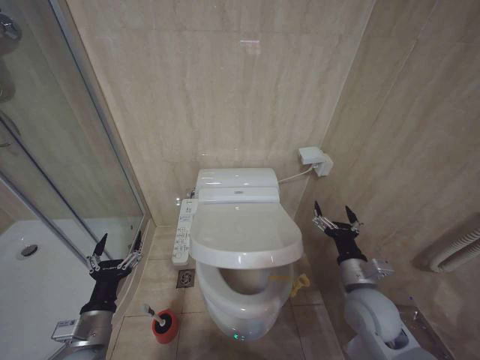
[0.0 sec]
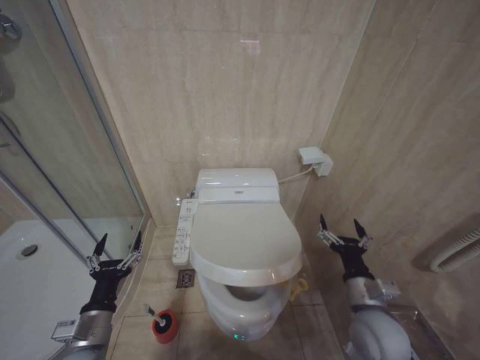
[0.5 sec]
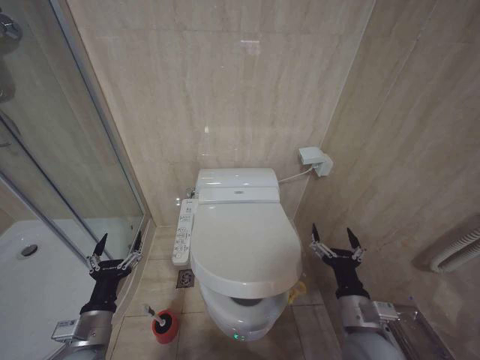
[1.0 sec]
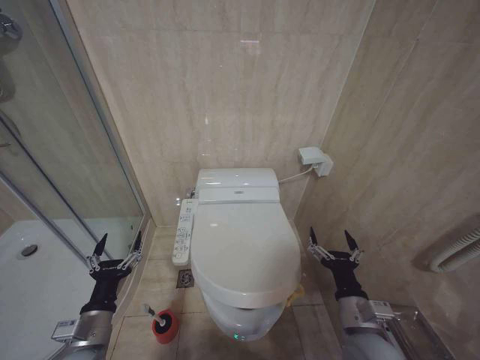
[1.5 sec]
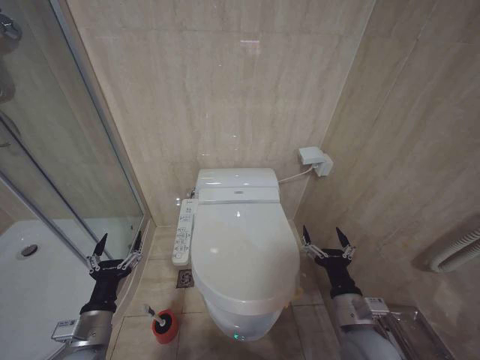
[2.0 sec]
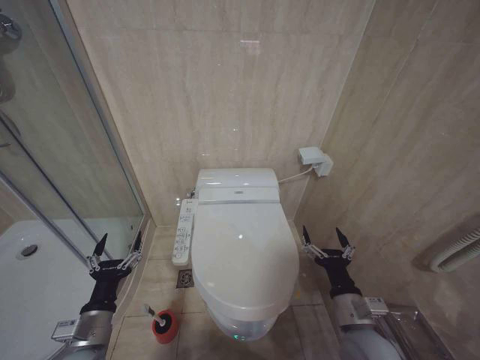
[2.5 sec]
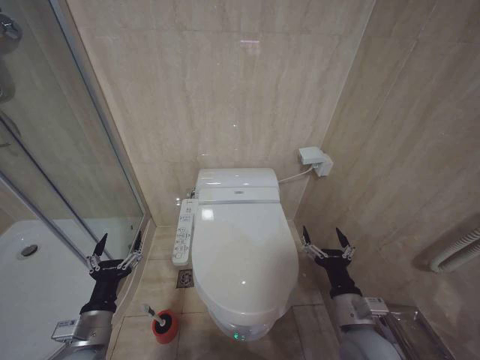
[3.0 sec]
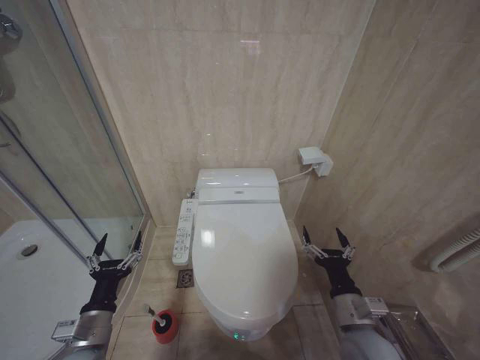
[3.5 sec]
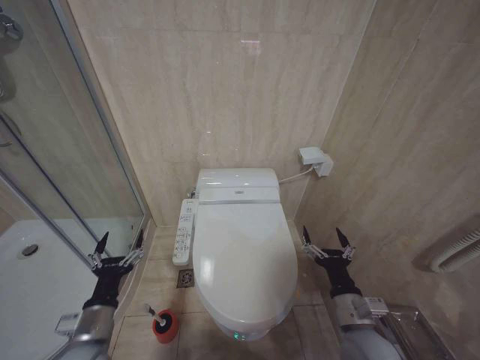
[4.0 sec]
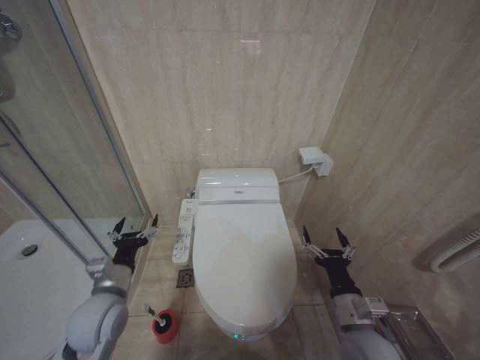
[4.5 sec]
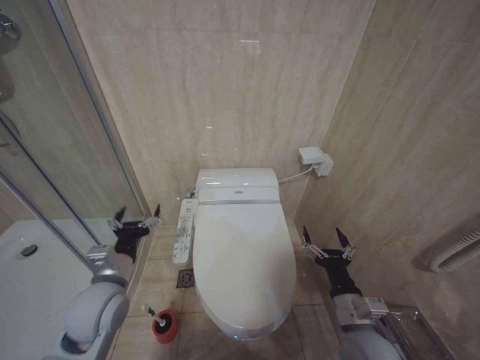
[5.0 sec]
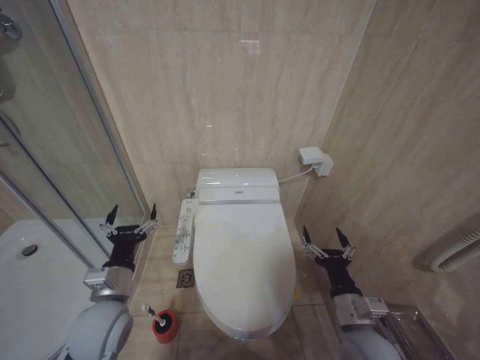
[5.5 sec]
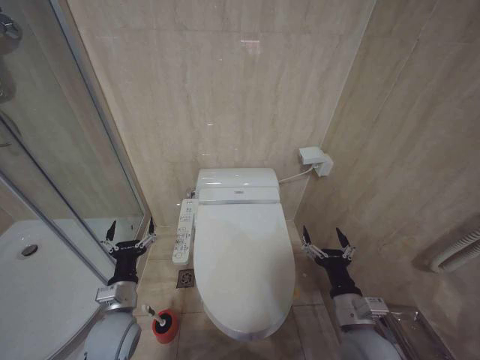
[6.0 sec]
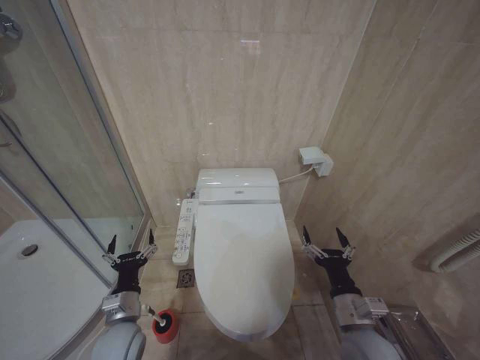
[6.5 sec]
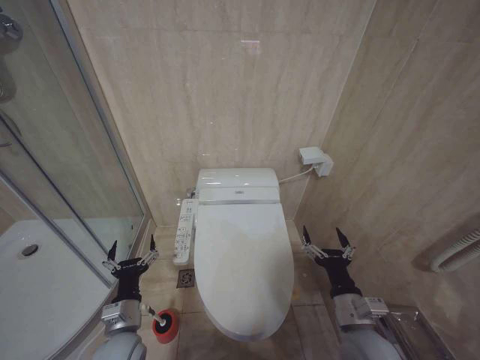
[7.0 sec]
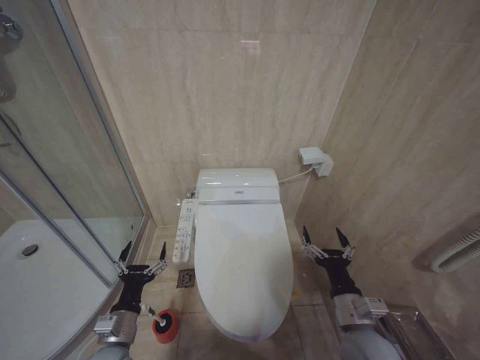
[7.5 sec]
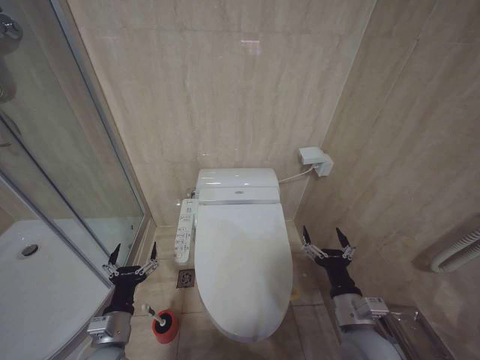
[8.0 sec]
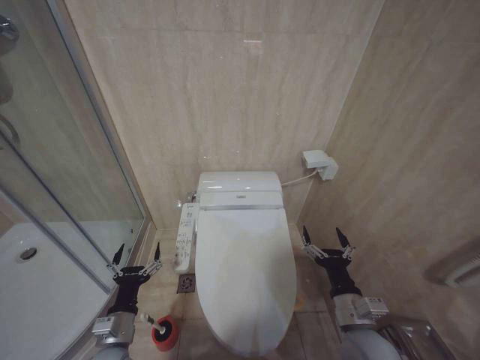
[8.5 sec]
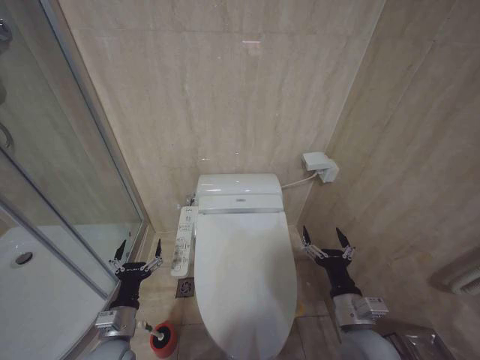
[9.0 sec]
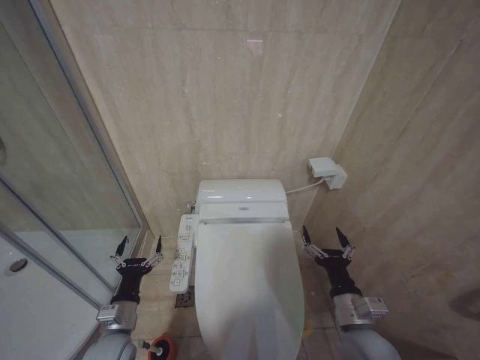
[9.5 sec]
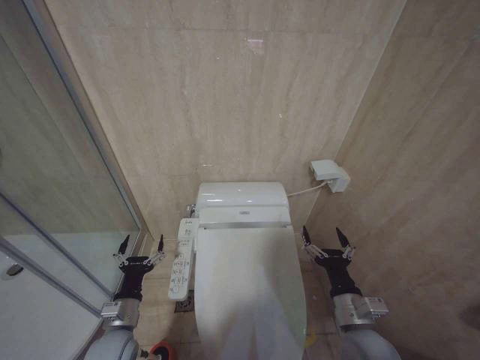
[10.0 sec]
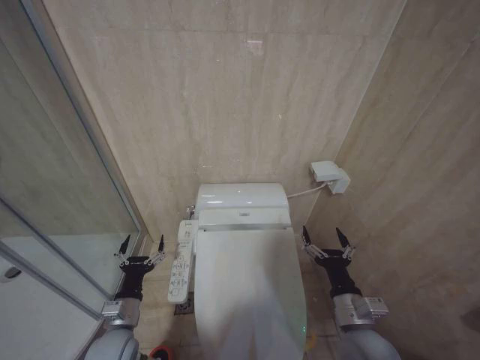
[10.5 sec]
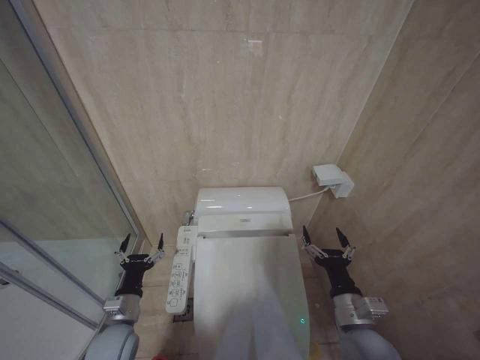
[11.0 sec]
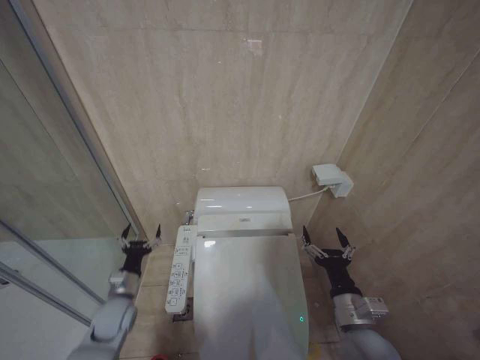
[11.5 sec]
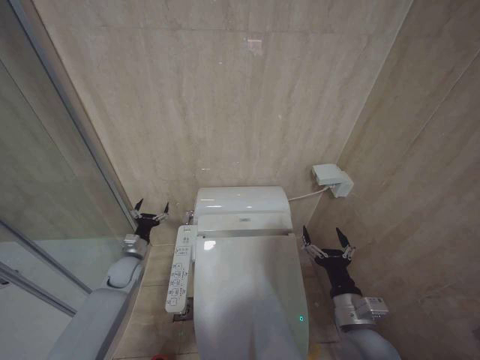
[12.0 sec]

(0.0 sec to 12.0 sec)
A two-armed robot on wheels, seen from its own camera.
Task of the whole recording: Open the toilet lid, clean the toilet bowl with a toilet brush, close the toilet lid, and flush.
0.0 sec - 2.0 sec: The right gripper is displaced backward by roughly 10 cm.
2.0 sec - 4.0 sec: The two grippers keep their place.
4.0 sec - 6.0 sec: The left gripper goes approximately 5 cm forward.
6.0 sec - 8.0 sec: The left gripper heads backward, covering roughly 5 cm.
8.0 sec - 10.0 sec: There are only small adjustments of the grippers.
10.0 sec - 12.0 sec: The left gripper is displaced forward by roughly 20 cm.

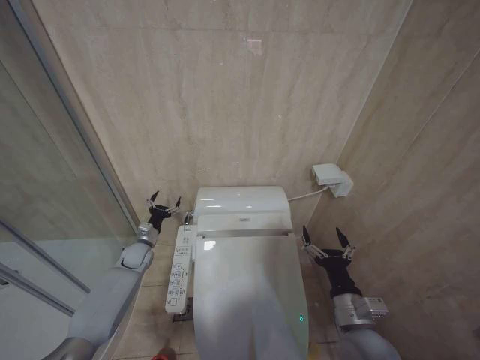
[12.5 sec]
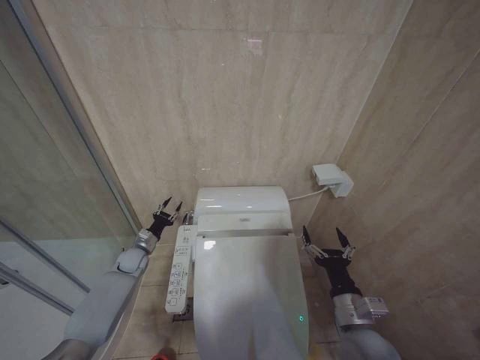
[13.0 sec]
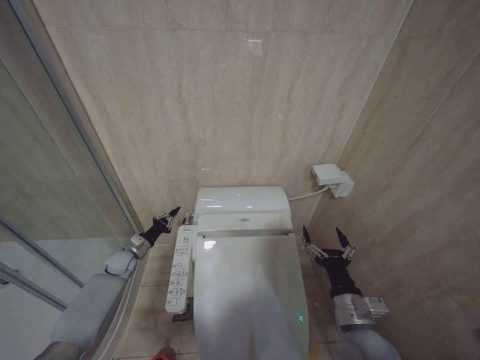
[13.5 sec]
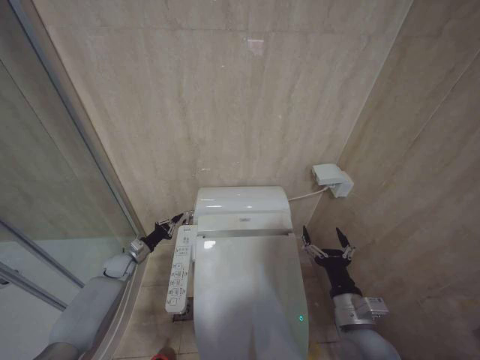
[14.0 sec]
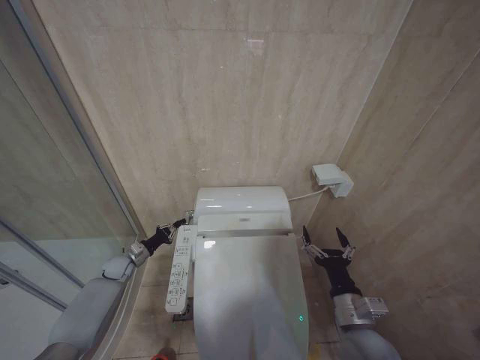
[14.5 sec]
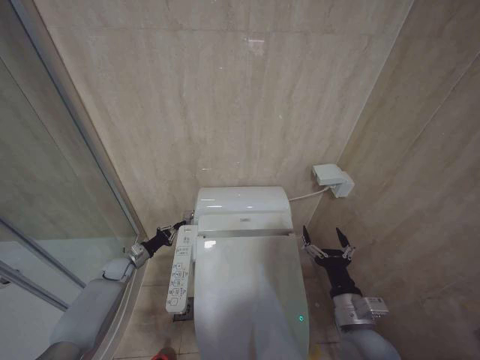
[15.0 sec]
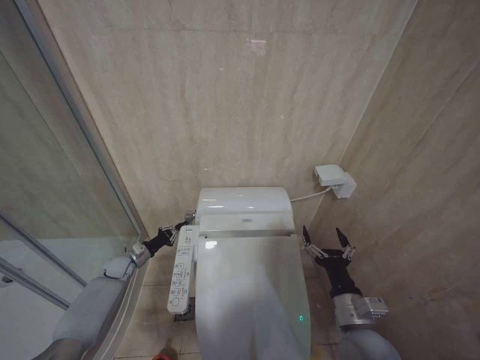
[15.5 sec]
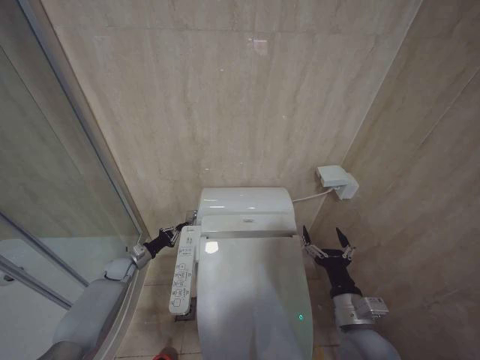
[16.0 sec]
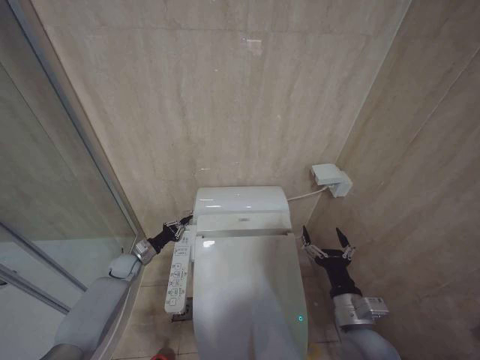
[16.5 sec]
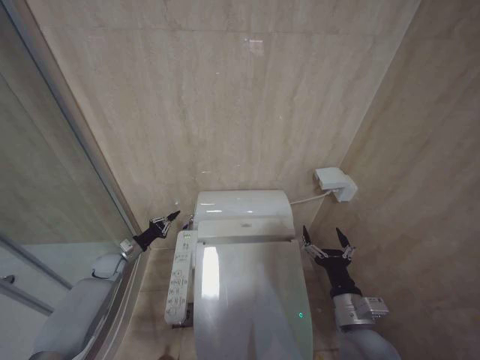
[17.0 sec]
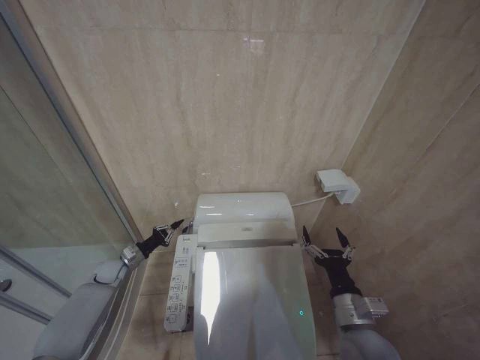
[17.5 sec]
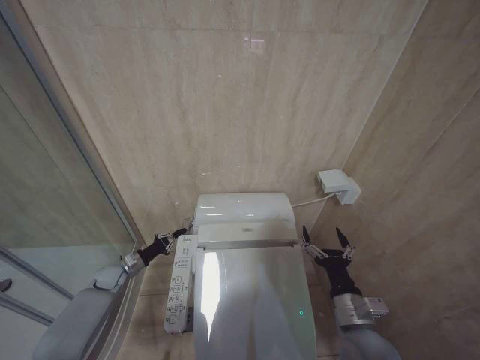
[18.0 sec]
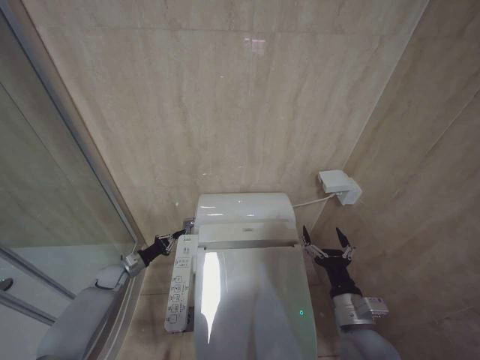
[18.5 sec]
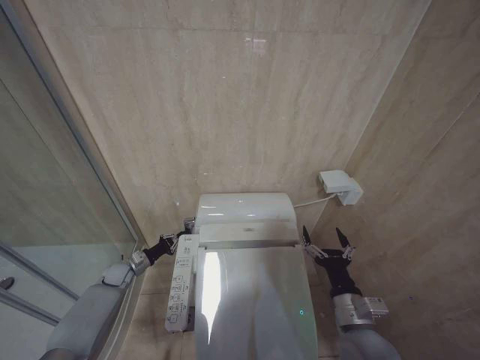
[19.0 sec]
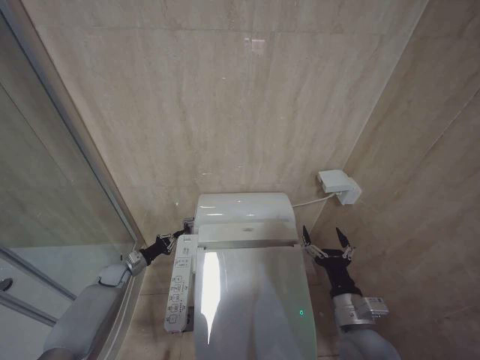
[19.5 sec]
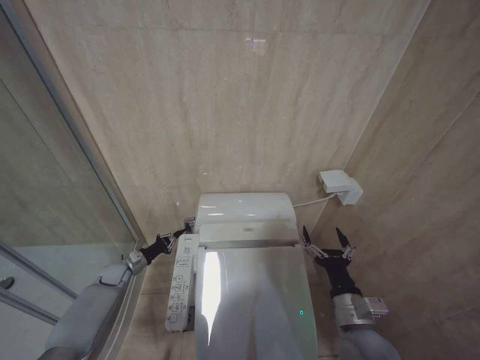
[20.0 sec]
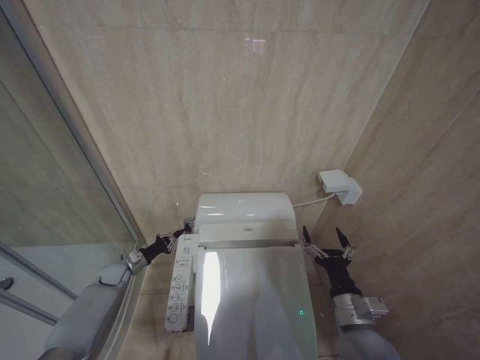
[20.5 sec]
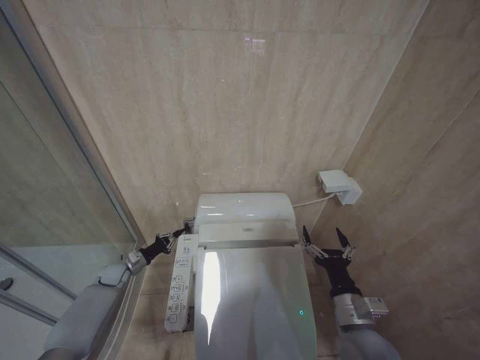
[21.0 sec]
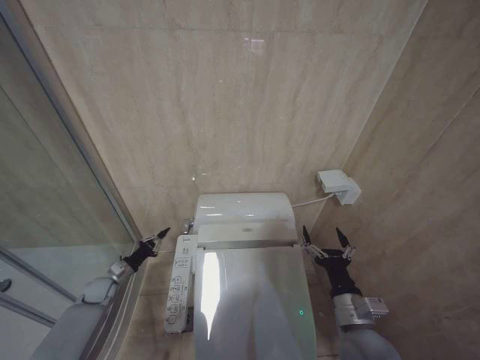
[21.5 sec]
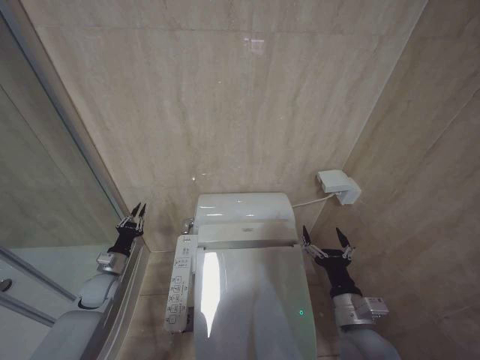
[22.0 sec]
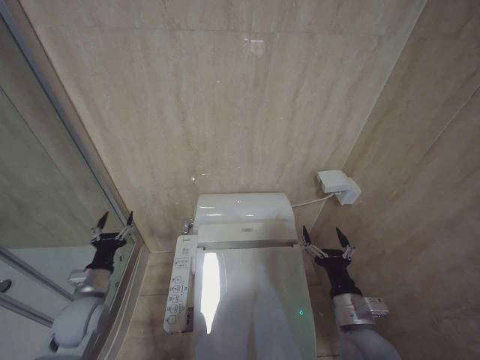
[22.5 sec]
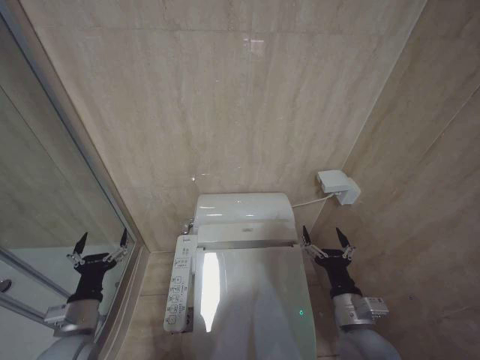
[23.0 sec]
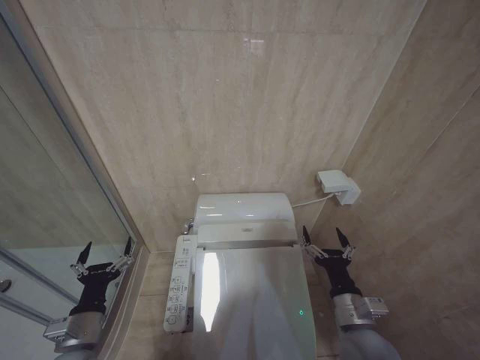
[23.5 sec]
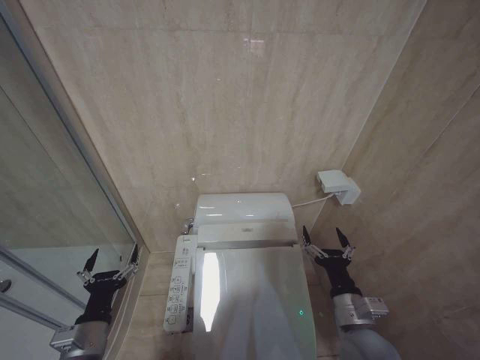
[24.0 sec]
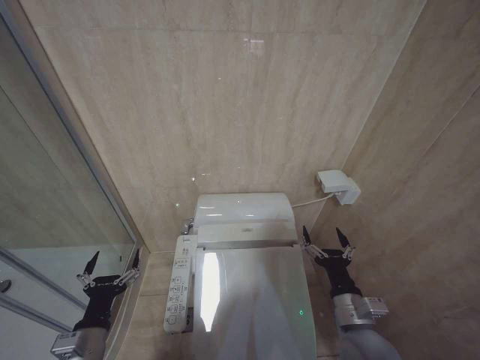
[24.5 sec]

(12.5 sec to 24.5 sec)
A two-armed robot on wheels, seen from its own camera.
Task of the whole recording: Open the toilet lid, clean the toilet bowl with a toilet brush, close the toilet lid, and flush.
12.5 sec - 14.5 sec: The left gripper is displaced to the left by approximately 5 cm, and closes its fingers.
16.5 sec - 18.5 sec: The left gripper moves roughly 5 cm.
20.5 sec - 22.5 sec: The left gripper goes some 20 cm backward and upward, and opens its fingers.
22.5 sec - 24.5 sec: The left gripper shifts roughly 15 cm backward and to the right, and opens up.

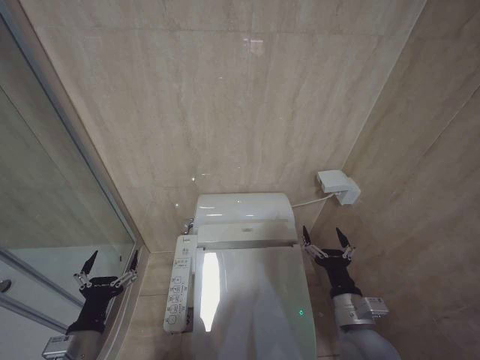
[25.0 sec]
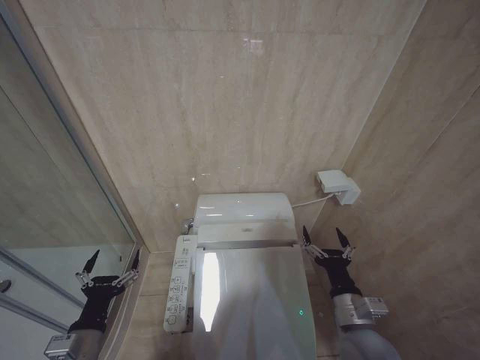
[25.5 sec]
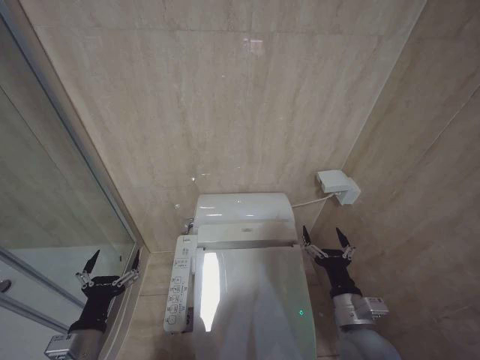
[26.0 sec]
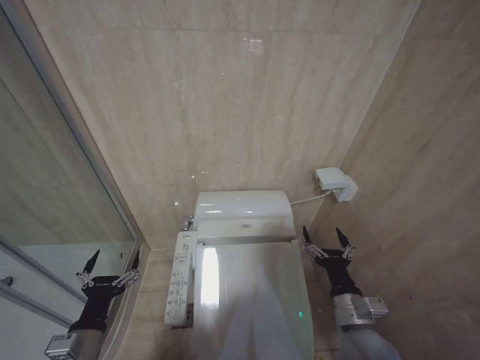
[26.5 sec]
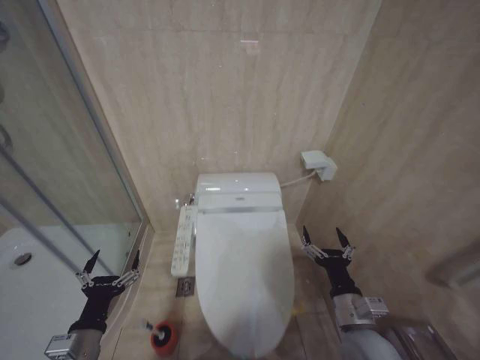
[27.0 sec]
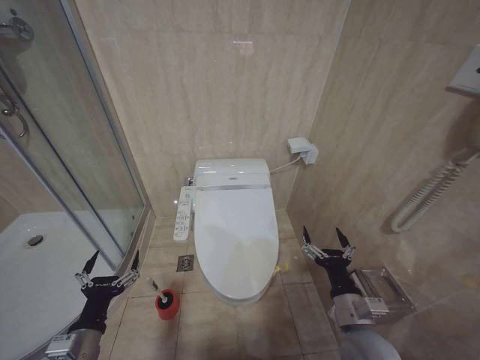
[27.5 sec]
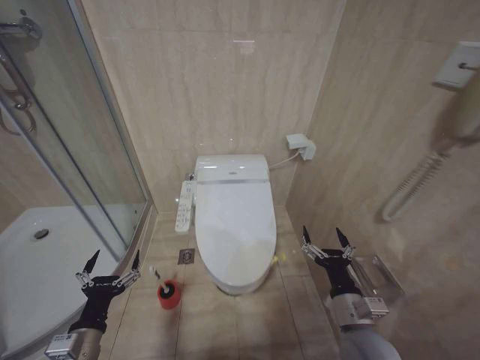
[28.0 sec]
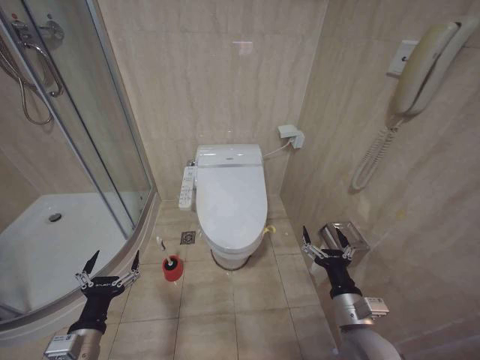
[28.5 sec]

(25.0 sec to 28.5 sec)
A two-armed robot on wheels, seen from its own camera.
Task of the whole recording: Open the toilet lid, clean the toilet bowl with a toilet brush, close the toilet lid, and flush.
25.0 sec - 27.0 sec: Both grippers stay about where they are.
